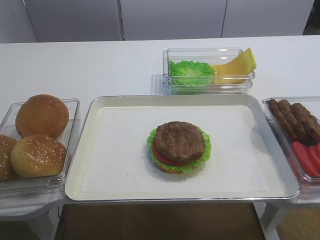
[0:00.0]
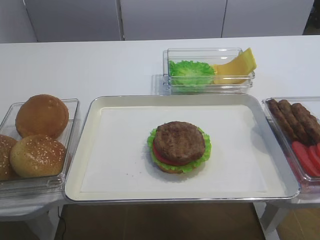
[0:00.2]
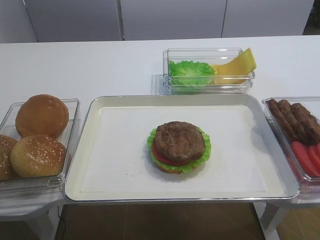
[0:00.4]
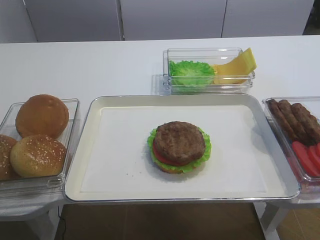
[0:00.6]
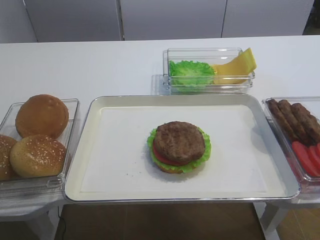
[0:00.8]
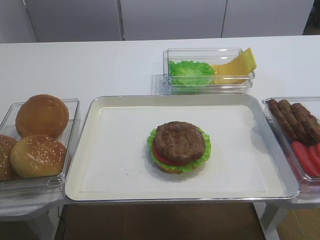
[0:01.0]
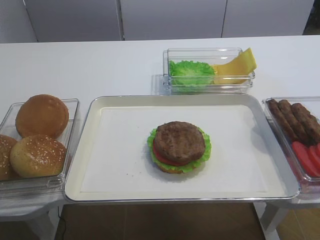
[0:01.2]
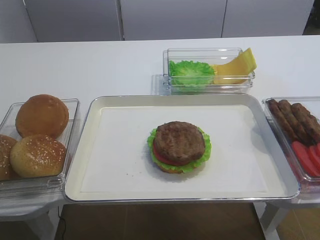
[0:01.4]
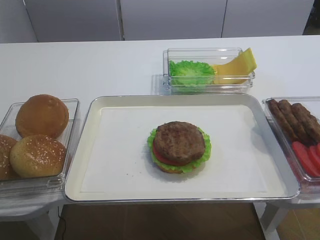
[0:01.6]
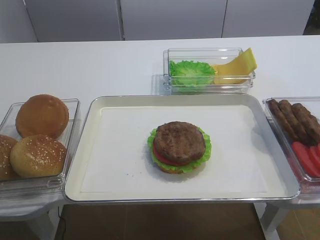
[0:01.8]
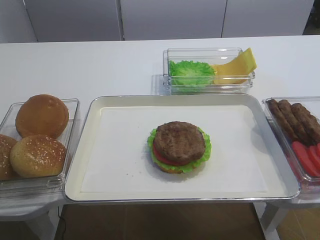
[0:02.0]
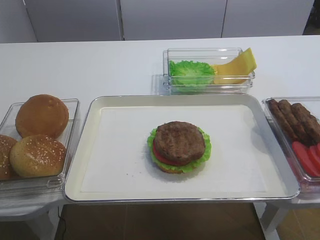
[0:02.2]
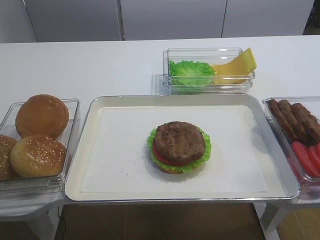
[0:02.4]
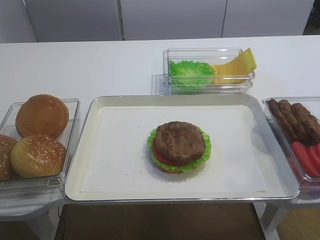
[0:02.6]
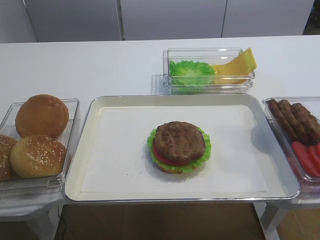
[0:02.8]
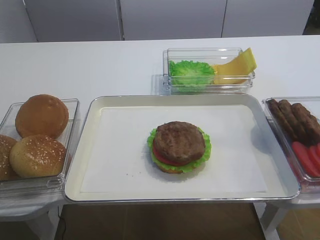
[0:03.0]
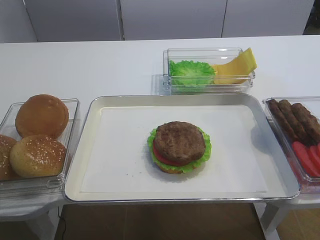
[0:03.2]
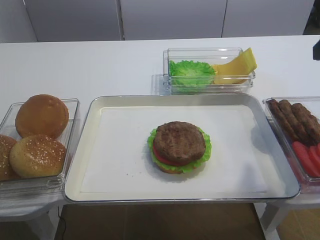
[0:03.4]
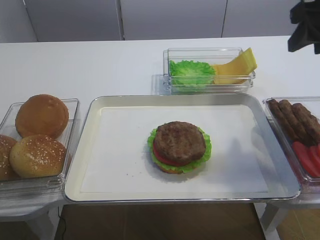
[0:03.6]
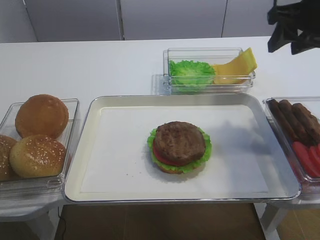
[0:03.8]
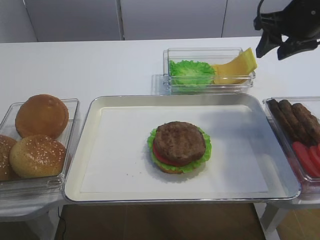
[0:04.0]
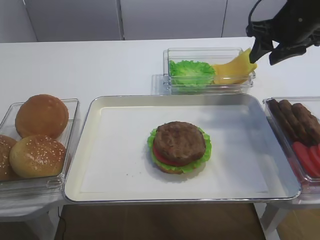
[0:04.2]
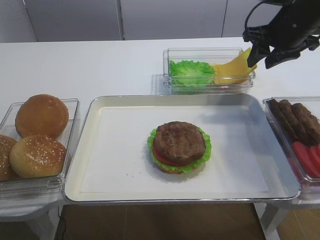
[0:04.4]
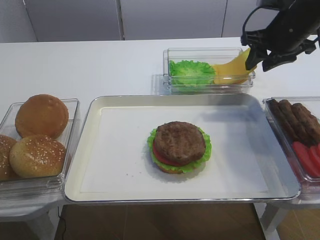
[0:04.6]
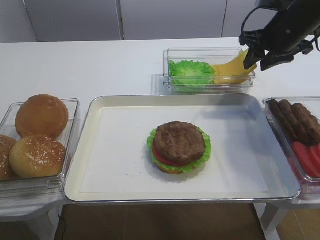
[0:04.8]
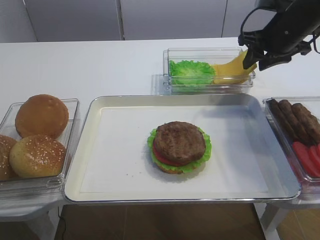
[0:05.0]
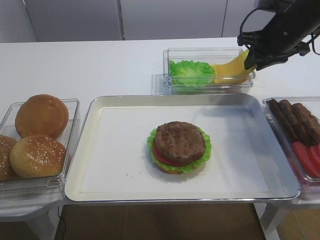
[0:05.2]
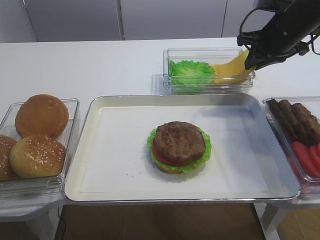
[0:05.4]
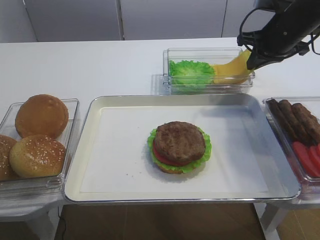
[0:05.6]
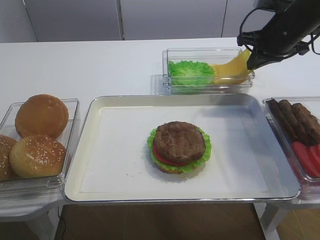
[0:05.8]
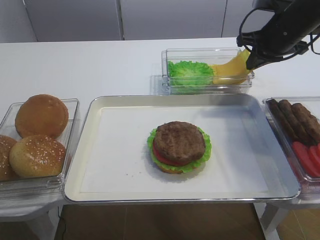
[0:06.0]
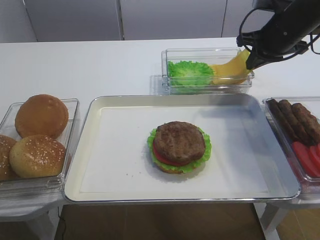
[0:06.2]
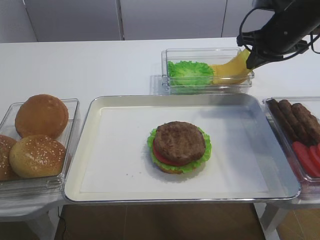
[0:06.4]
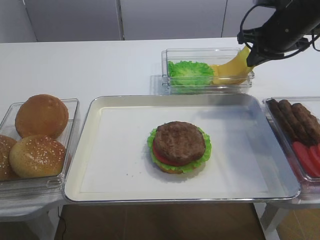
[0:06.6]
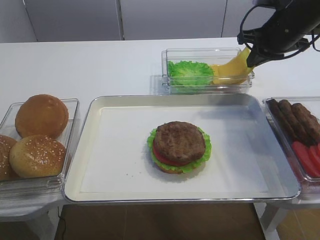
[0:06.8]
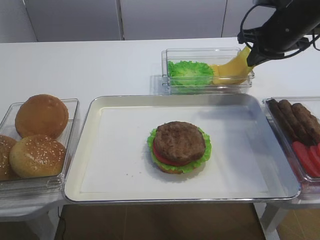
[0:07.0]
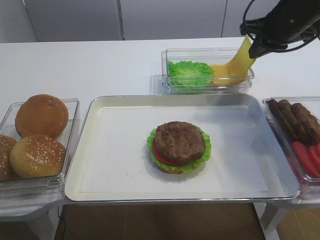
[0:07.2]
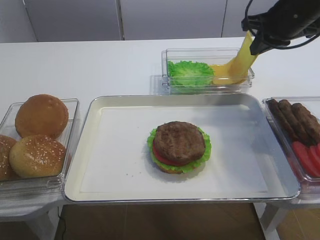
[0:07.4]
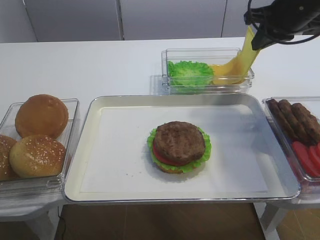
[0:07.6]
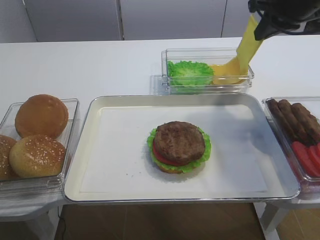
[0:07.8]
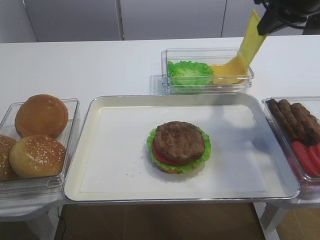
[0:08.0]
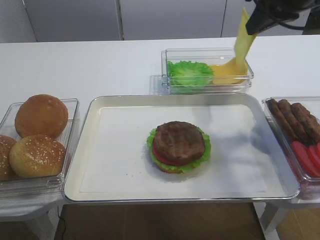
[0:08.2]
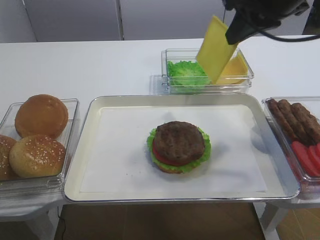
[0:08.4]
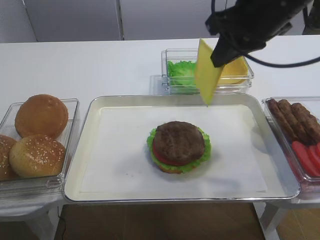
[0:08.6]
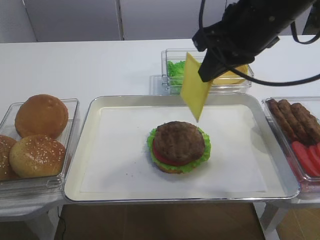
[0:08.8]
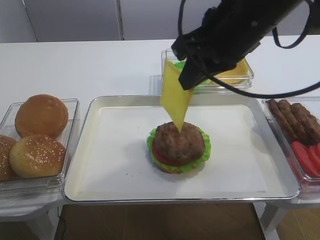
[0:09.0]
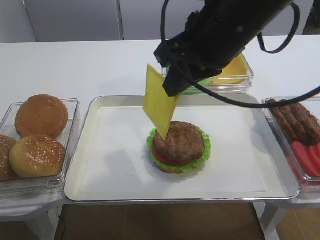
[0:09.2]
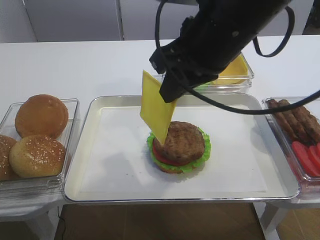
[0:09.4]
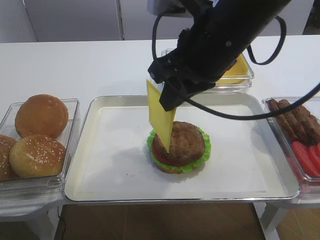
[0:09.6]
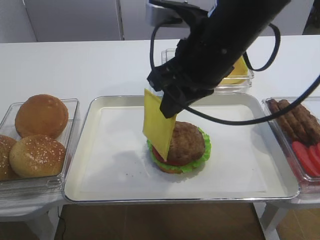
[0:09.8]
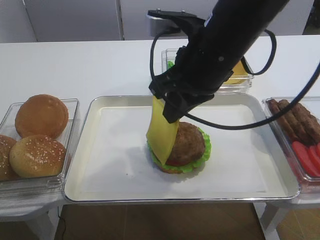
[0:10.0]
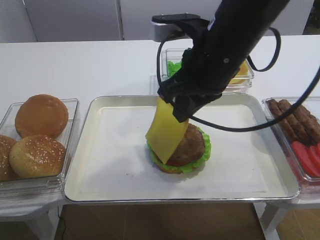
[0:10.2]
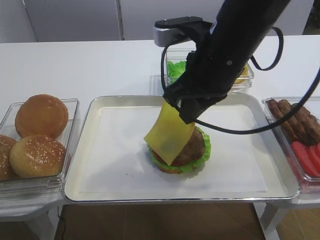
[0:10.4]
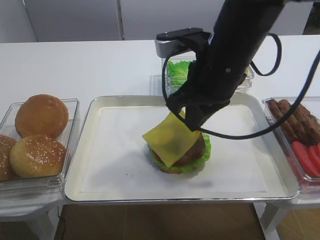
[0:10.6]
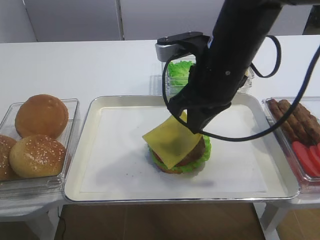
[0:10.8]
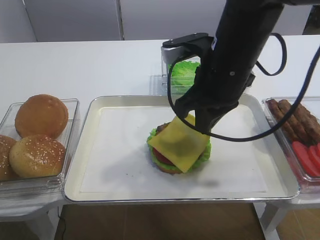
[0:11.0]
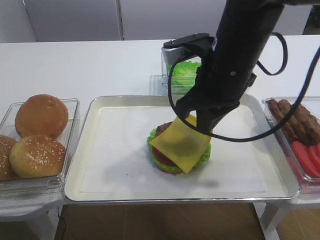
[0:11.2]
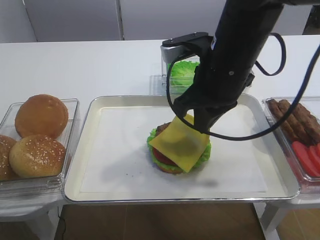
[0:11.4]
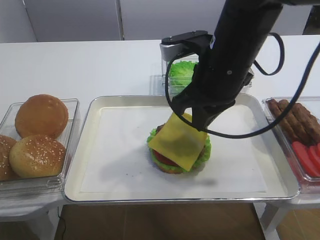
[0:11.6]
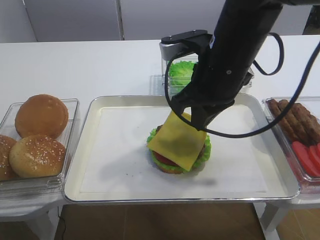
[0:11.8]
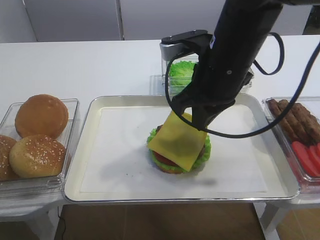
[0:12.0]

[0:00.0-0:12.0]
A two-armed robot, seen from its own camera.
Step, 0:00.0 to 0:07.2: Pick up the cheese slice with the right gripper.
0:03.0 to 0:04.4: The right gripper travels forward by some 30 cm.
0:04.4 to 0:06.0: The right gripper closes up.
0:06.0 to 0:07.6: The right gripper ends up roughly 5 cm from where it was.
0:07.6 to 0:09.0: The right gripper moves backward and to the left, approximately 20 cm.
0:09.0 to 0:10.4: The right gripper changes place by about 5 cm.
0:10.4 to 0:12.0: There are only small adjustments of the grippers.

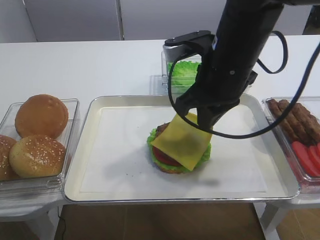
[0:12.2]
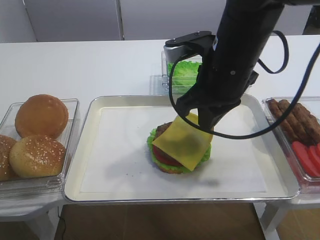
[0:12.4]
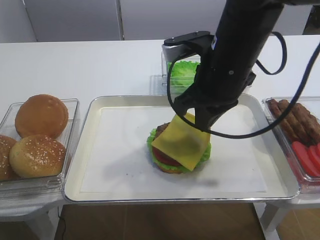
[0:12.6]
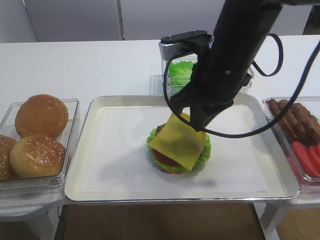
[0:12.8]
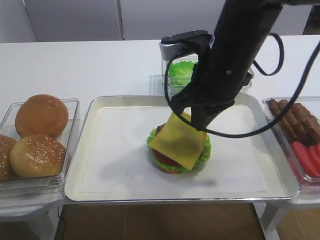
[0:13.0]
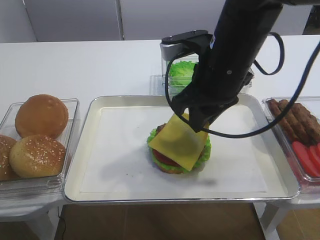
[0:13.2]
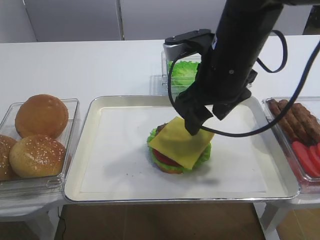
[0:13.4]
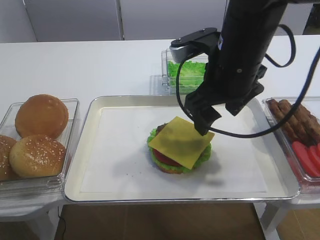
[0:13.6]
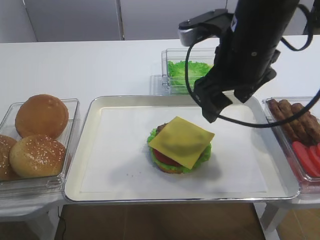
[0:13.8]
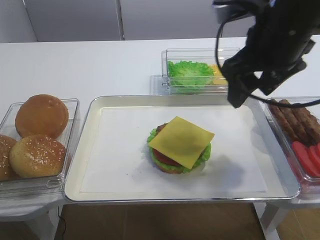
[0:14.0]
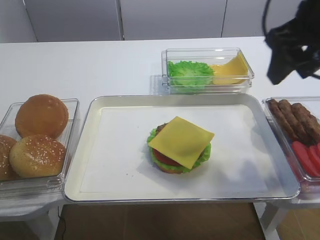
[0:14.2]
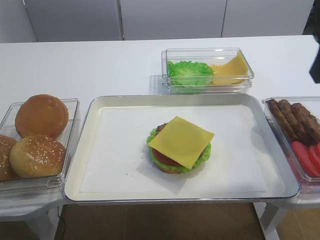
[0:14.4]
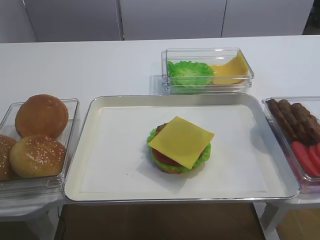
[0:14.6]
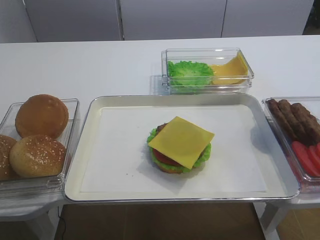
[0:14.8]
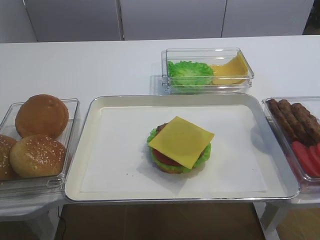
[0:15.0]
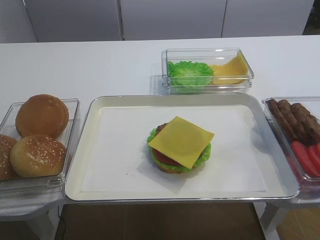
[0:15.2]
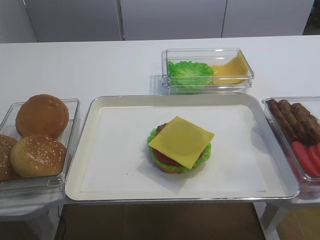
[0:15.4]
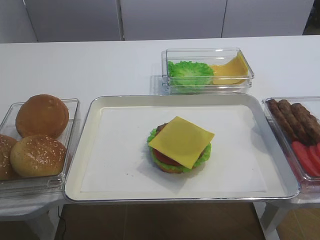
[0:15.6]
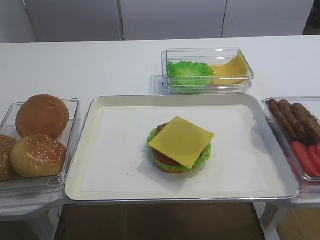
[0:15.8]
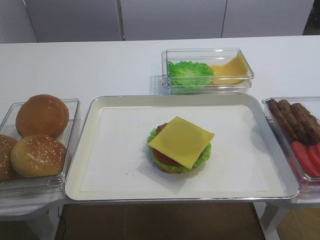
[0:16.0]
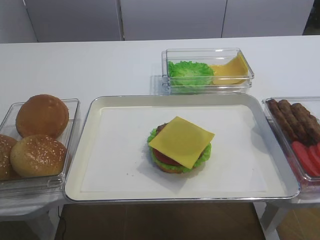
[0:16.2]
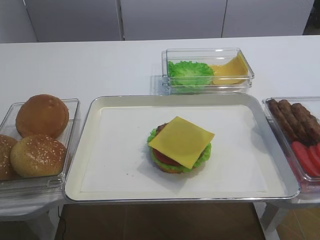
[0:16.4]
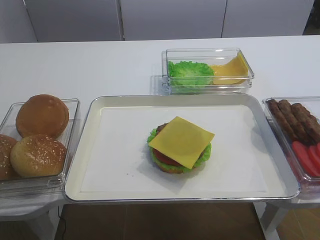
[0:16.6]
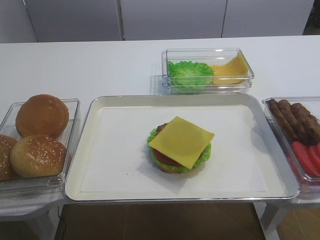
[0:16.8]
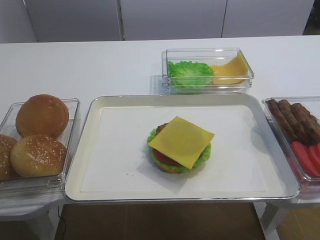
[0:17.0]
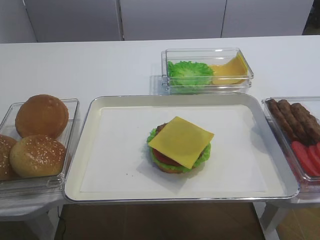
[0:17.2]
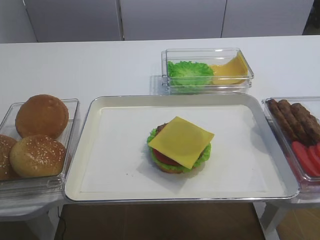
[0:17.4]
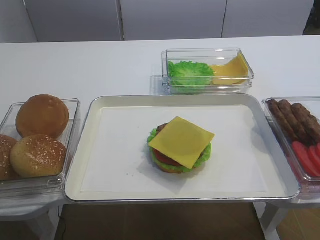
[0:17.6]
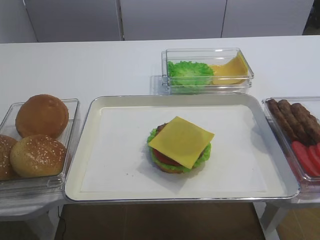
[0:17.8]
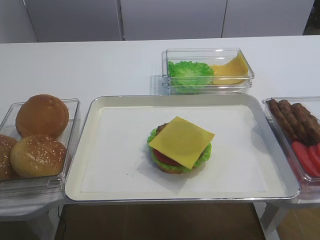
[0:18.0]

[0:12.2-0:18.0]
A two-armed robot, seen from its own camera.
0:12.2 to 0:13.6: The right gripper opens its fingers.
0:13.6 to 0:15.0: The right gripper travels backward, to the right and upward by some 25 cm.
0:16.6 to 0:18.0: The two grippers keep their place.
